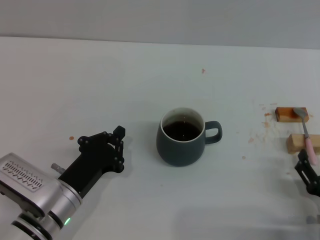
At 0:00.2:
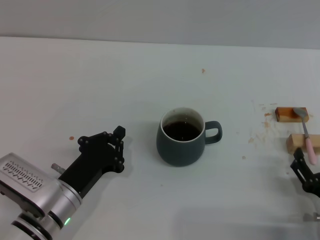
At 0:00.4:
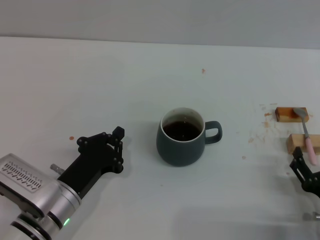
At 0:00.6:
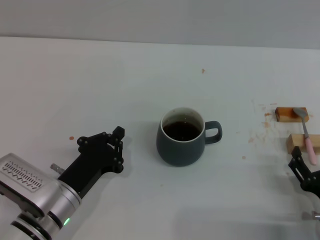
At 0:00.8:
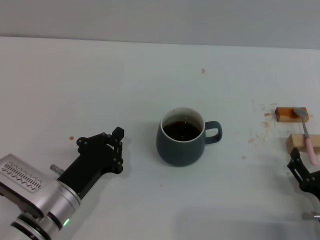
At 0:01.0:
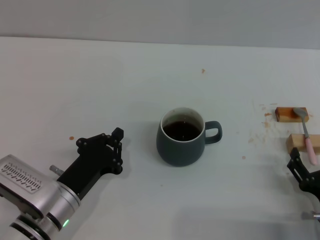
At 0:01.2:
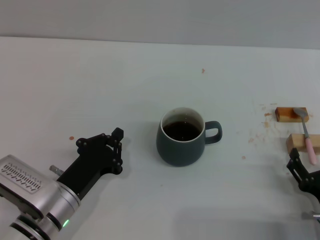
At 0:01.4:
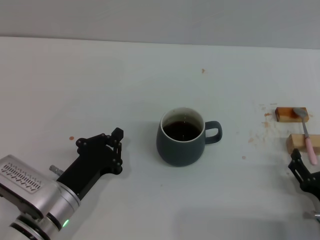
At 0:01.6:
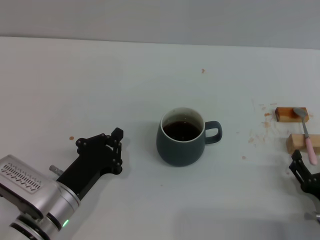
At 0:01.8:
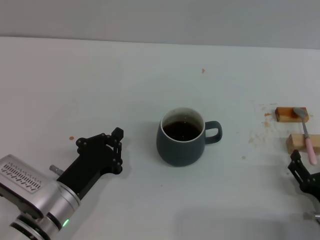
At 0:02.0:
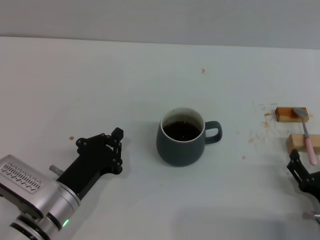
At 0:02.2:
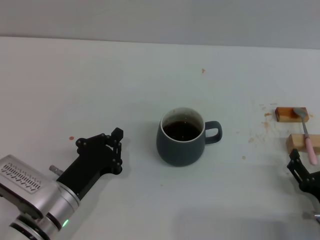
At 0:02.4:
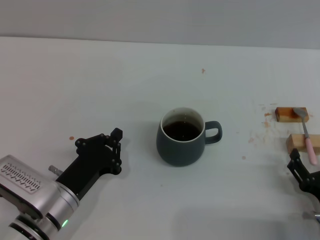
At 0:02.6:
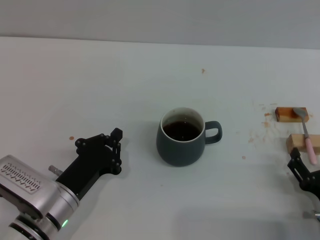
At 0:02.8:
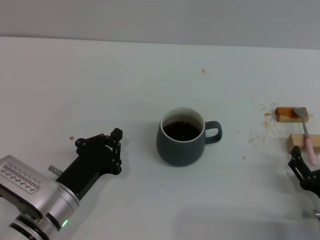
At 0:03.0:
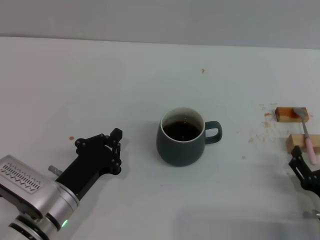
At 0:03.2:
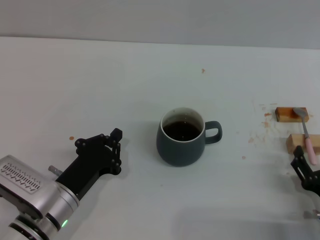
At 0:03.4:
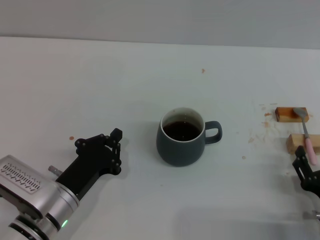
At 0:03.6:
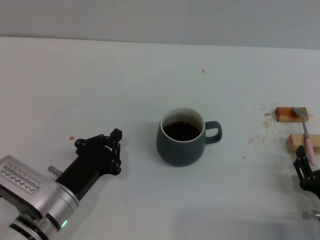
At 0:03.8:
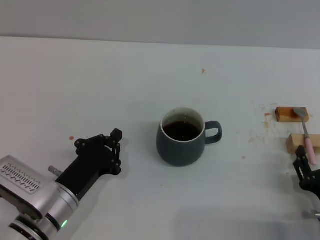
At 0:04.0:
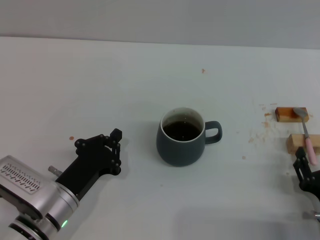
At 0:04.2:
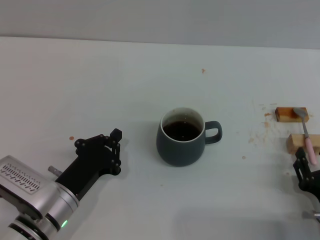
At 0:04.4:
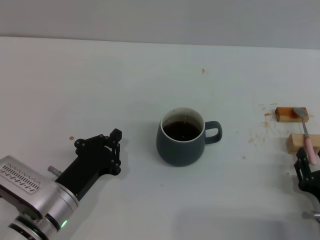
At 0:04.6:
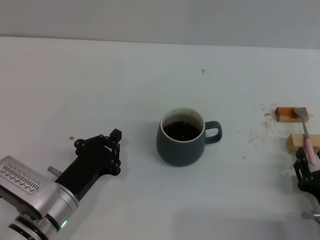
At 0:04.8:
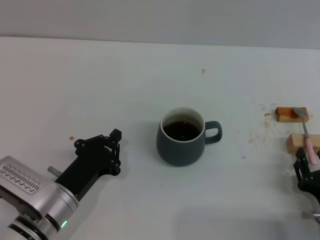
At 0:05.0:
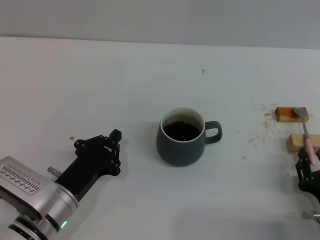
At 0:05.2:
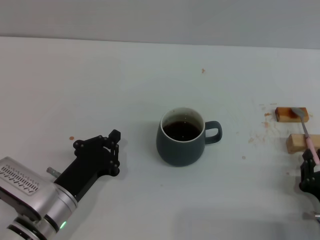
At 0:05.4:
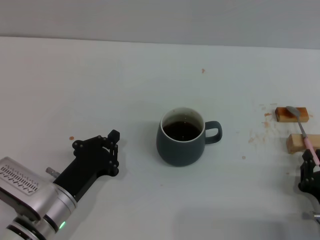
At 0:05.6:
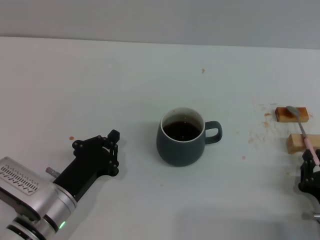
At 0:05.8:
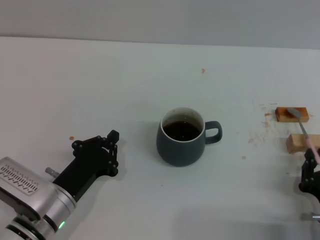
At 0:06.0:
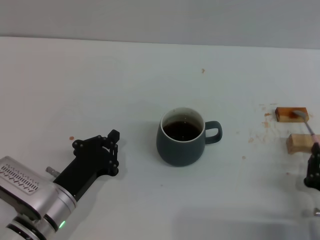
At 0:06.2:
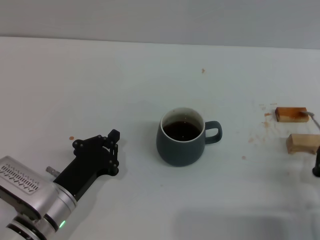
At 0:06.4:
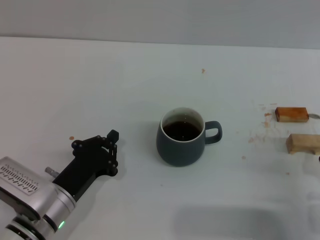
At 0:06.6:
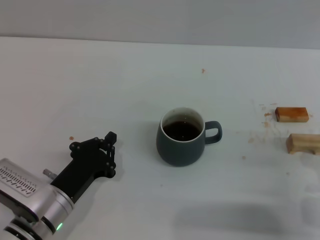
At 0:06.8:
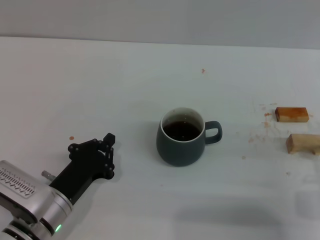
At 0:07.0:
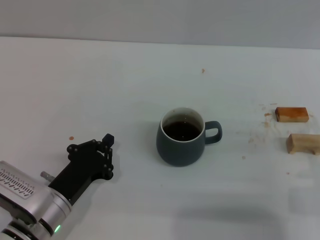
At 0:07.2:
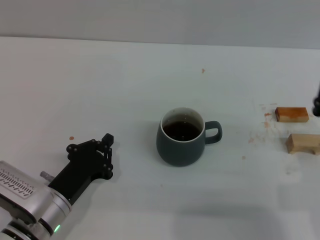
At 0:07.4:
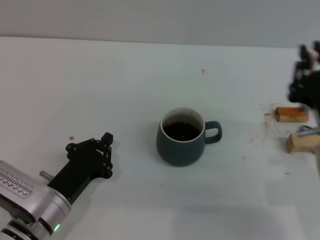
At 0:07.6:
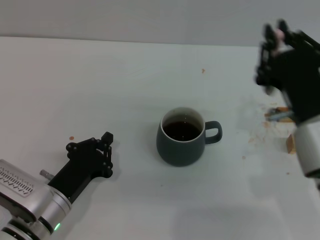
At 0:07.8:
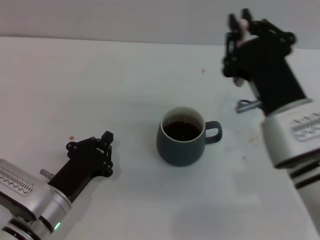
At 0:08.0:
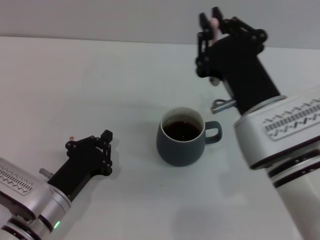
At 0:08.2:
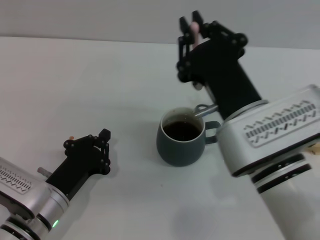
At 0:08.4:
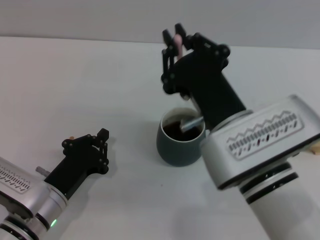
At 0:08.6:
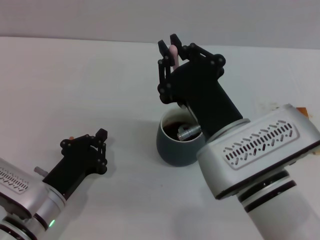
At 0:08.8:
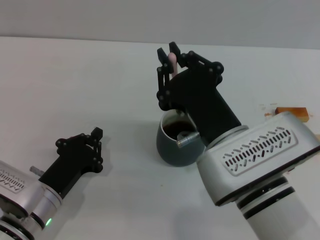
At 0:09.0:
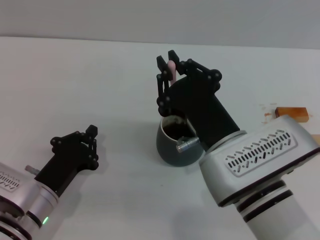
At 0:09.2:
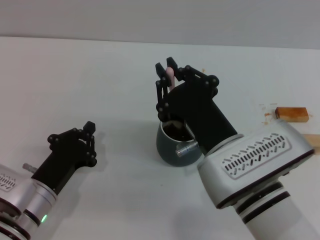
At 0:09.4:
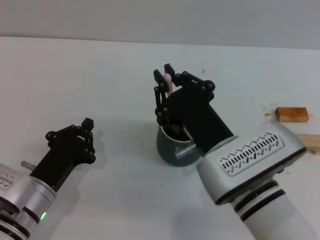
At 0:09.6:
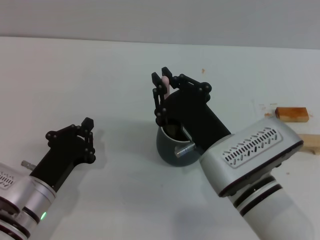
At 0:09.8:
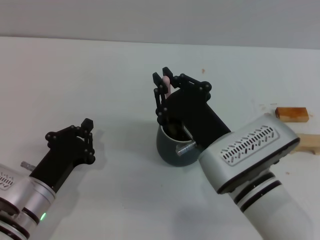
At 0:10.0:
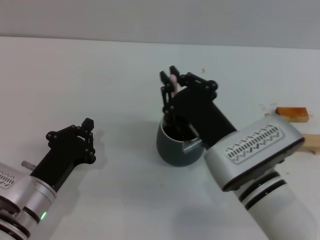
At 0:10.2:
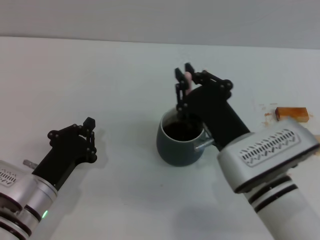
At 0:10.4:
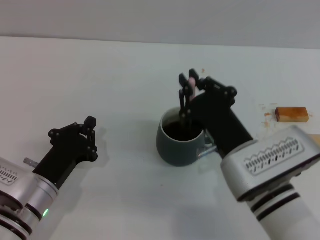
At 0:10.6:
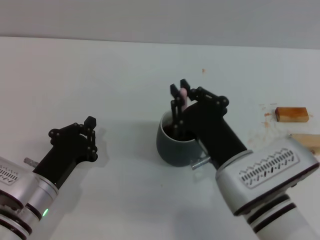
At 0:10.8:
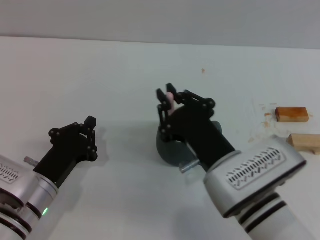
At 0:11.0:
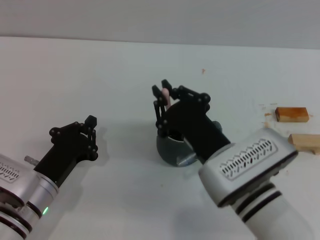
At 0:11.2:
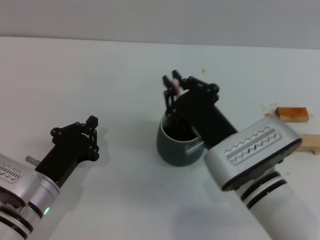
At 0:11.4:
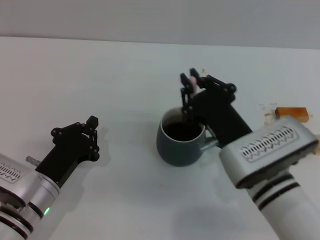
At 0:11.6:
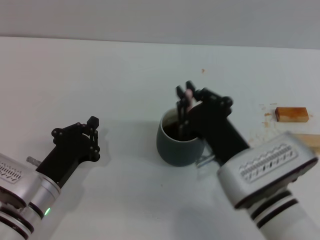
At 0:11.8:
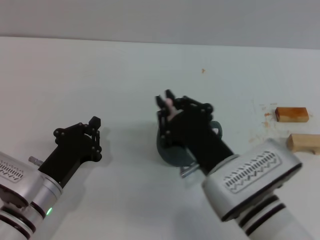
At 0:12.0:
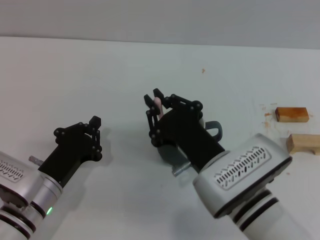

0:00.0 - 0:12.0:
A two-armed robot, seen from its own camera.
Task of the whole recording: Move the grey cup to the center, lift the pink spoon, stir it three times in the cup, and put the spoon into the cup.
Step, 0:00.0 - 0:07.2: Pick up the spoon with the right gripper.
0:00.0 - 0:01.6: There are only small adjustments of the grippers.
0:01.6 - 0:03.0: Neither gripper changes place.
0:03.0 - 0:04.4: The right gripper closes its fingers.
0:04.4 - 0:06.0: The right gripper closes up.
0:06.0 - 0:07.6: The right gripper is displaced upward, to the left and forward by some 20 cm.
0:07.6 - 0:09.0: The right gripper is displaced to the left by about 10 cm.
0:09.0 - 0:10.4: The right gripper changes place by some 5 cm.
0:10.4 - 0:12.0: The grippers move only a little.

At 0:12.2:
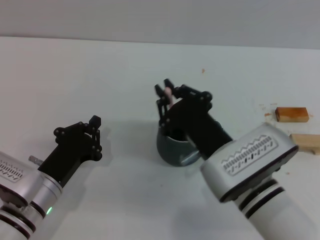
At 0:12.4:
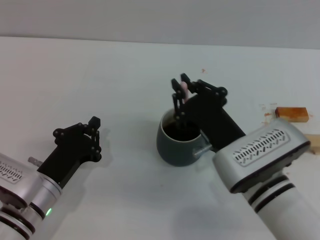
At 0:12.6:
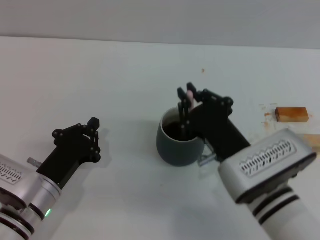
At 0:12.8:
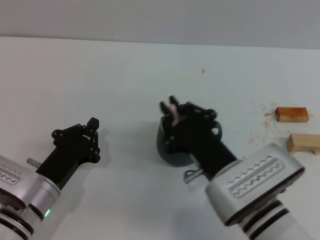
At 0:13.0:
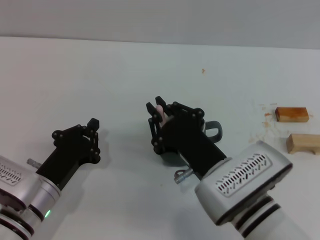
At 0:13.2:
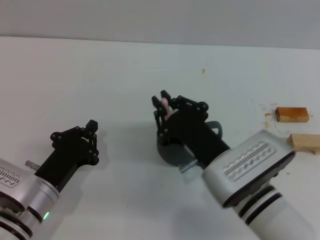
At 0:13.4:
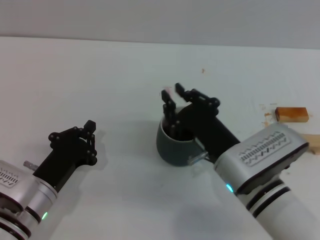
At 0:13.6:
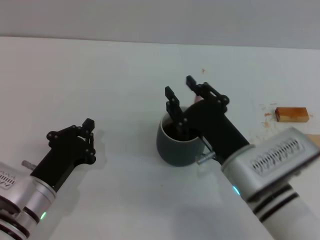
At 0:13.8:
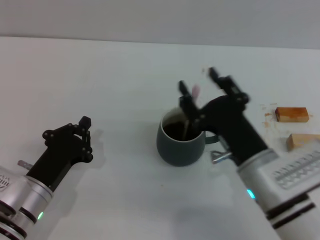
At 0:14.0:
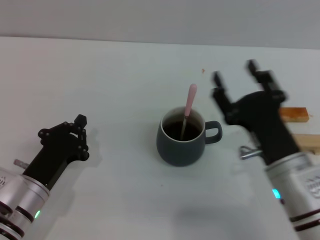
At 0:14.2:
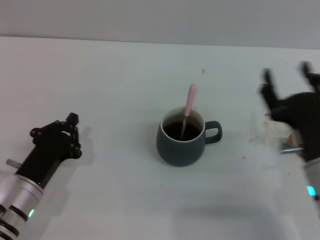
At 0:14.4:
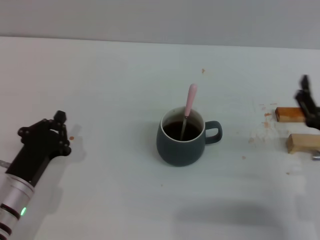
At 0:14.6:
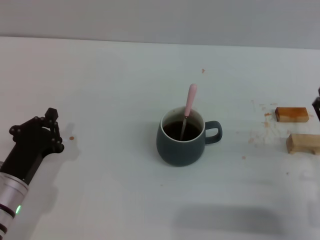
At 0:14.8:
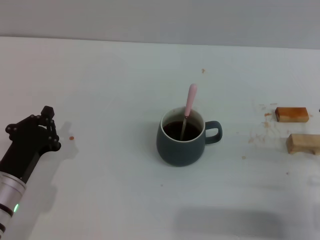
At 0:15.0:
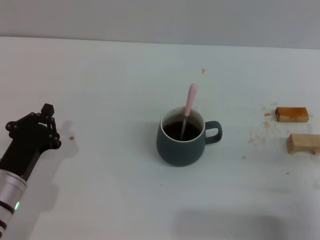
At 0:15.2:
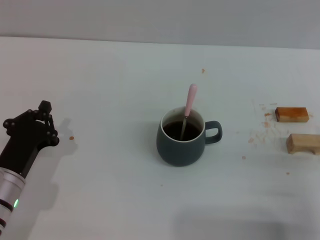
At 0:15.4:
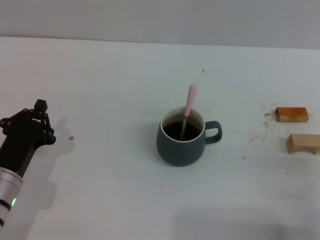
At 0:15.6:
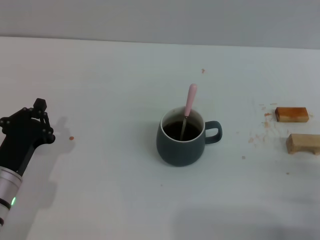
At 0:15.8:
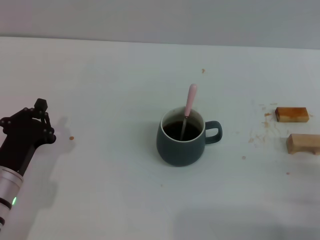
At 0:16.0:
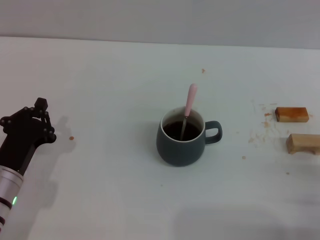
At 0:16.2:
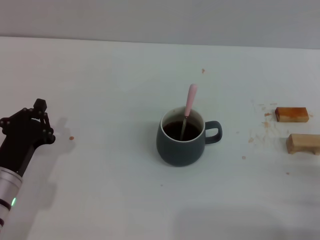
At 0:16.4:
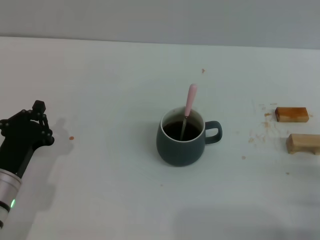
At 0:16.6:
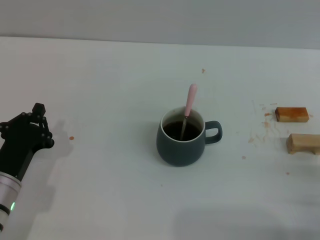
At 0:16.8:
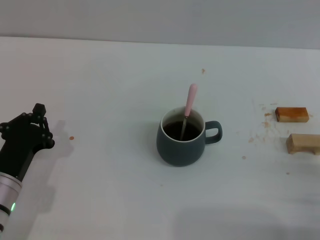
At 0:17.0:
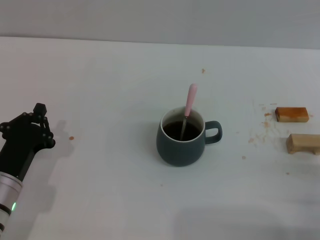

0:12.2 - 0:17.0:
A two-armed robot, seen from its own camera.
Task of the whole recording: Move the grey cup to the center, lift the pink spoon, stir it three times in the cup, and put the spoon into the cup.
0:12.2 - 0:13.8: The right gripper opens its fingers.
0:13.8 - 0:15.4: The right gripper goes roughly 15 cm to the right, and opens up.
0:15.4 - 0:17.0: There are only small adjustments of the grippers.
